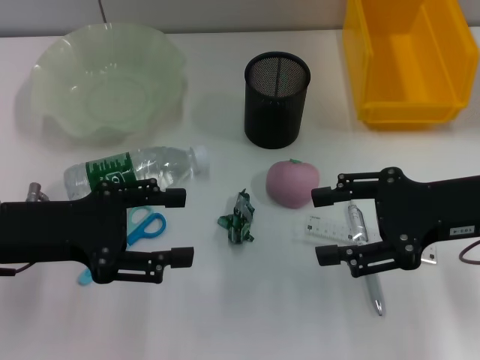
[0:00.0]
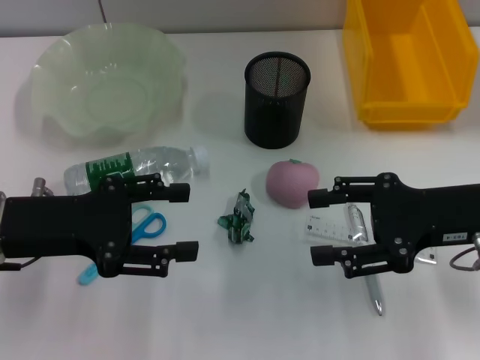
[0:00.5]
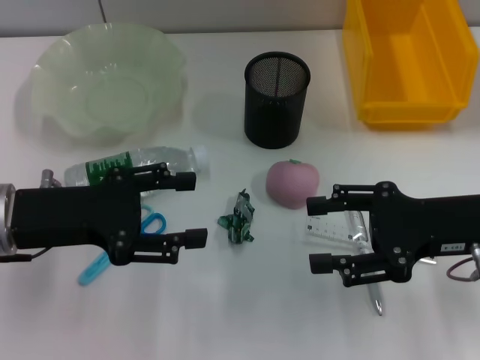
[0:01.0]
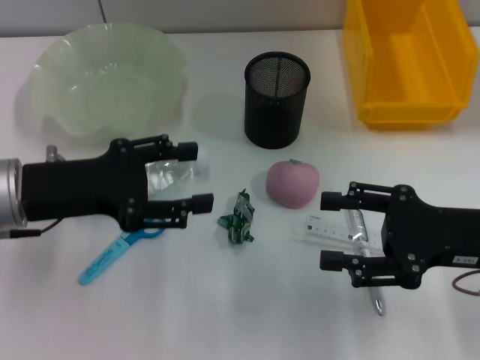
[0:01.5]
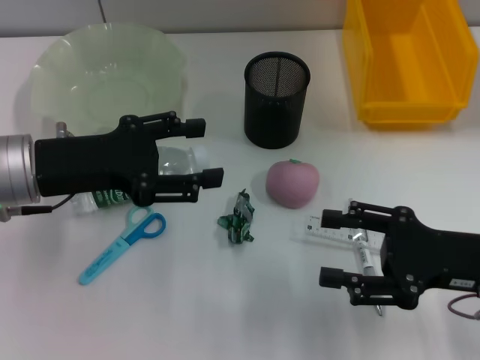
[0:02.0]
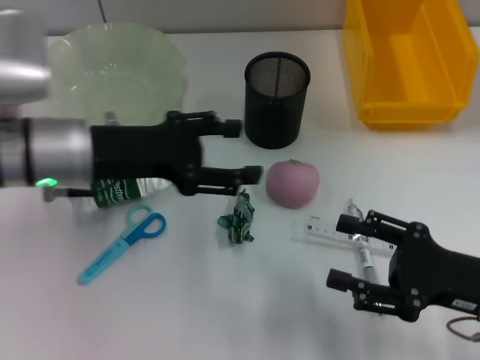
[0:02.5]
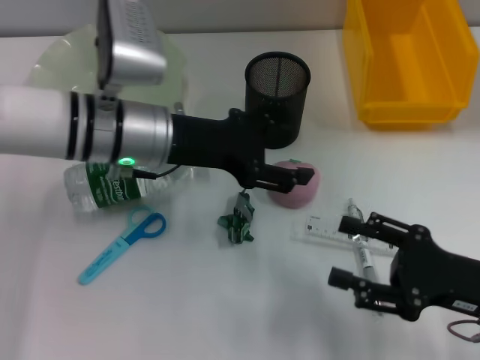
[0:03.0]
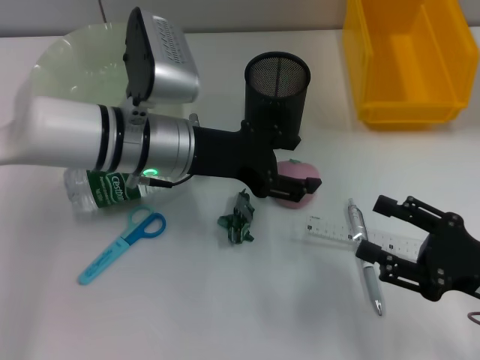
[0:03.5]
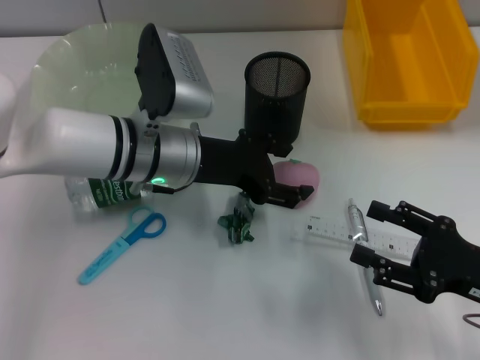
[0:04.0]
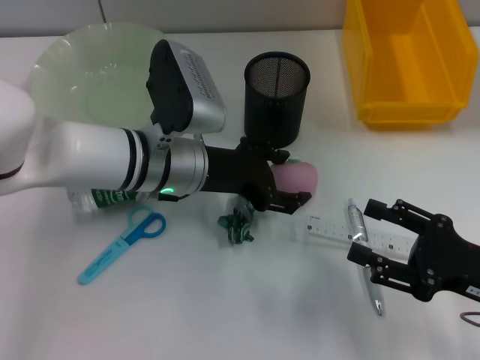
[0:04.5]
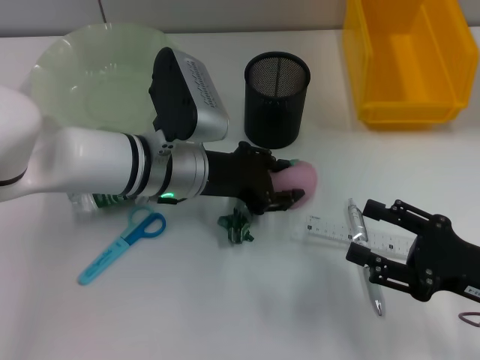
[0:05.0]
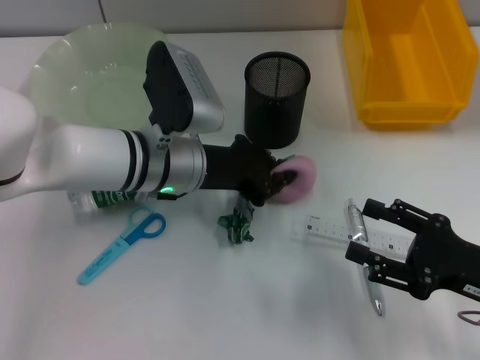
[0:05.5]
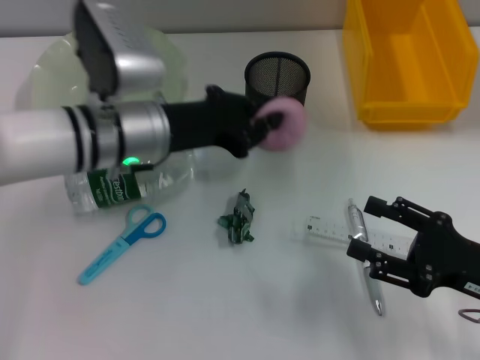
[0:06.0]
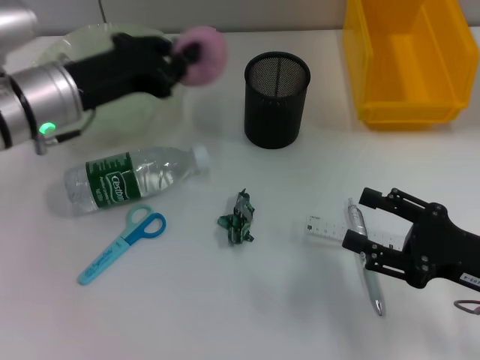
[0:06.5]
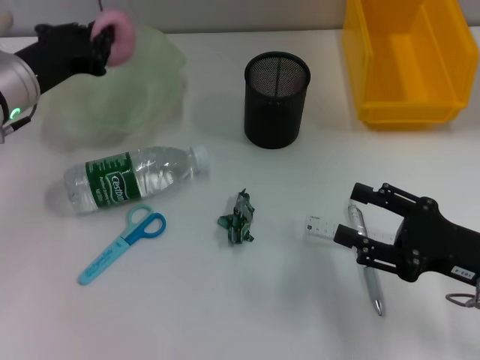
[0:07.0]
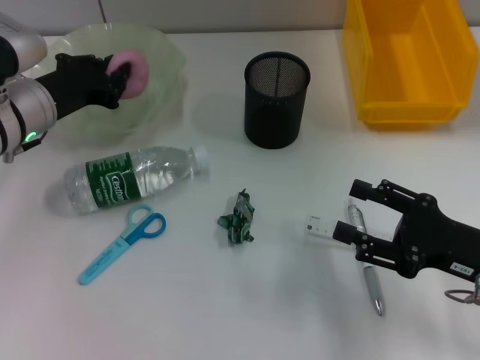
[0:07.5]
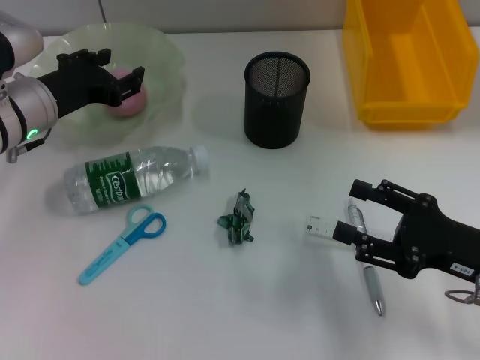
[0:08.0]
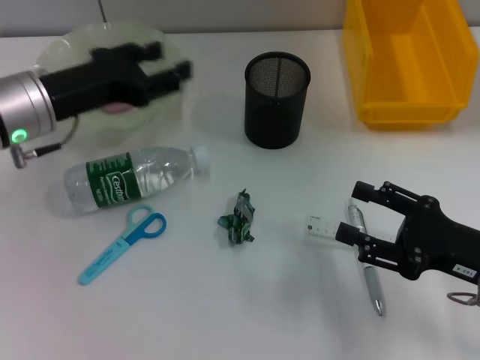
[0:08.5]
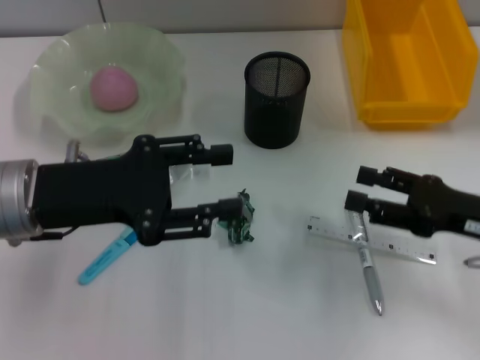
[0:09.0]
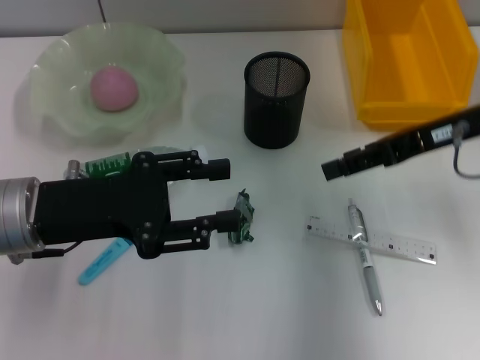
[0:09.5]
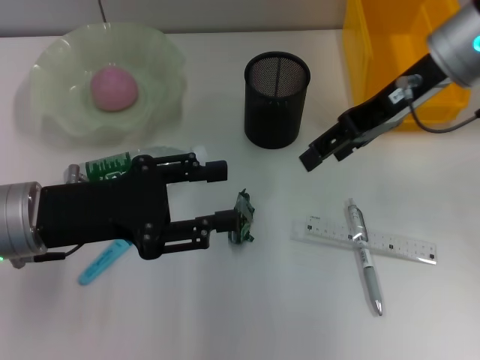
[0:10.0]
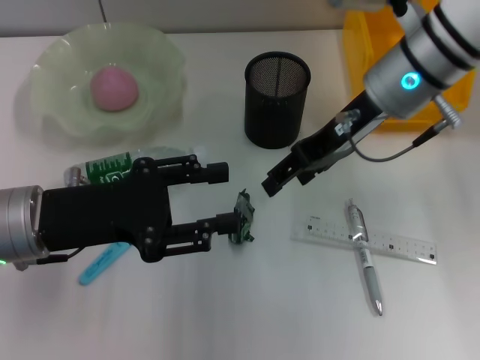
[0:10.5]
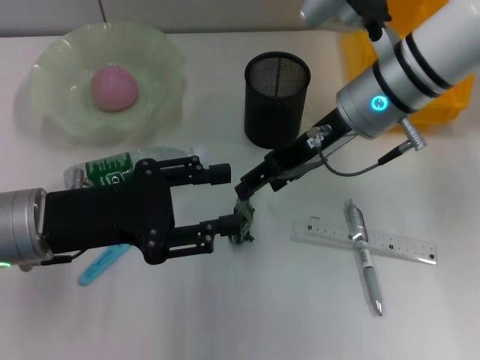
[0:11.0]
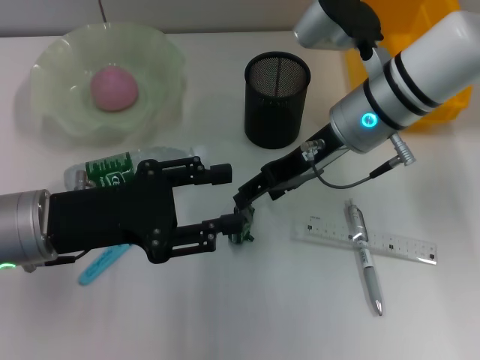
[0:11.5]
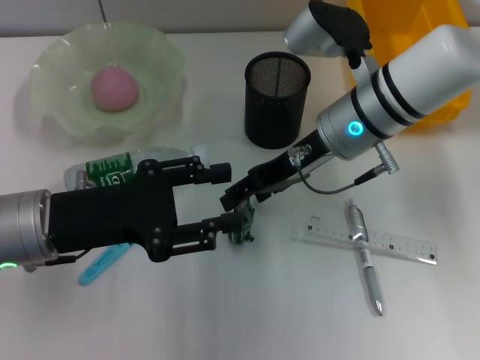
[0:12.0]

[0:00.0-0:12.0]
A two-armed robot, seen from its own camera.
Step, 0:00.0 to 0:05.0: Grab the peach with the left hand.
Step, 0:06.0 to 0:07.5: Place the peach into the fruit bowl with the left hand.
0:00.0 to 0:02.0: The left gripper ends up approximately 5 cm from where it was, while the right gripper moves downward, roughly 5 cm.
0:02.0 to 0:04.0: The left gripper goes roughly 15 cm to the right and forward, while the right gripper moves about 5 cm.
0:04.0 to 0:06.0: The left gripper closes its fingers.
0:06.0 to 0:08.0: The left gripper goes about 10 cm to the left, and opens up.
0:08.0 to 0:10.0: The right gripper heads forward, upward and to the left, covering about 25 cm. Meanwhile the left gripper travels backward by approximately 10 cm.
0:10.0 to 0:12.0: The right gripper travels downward and to the left by some 10 cm.

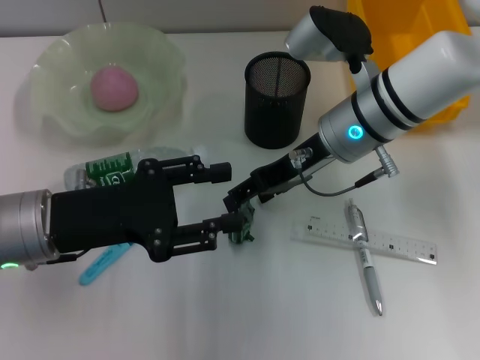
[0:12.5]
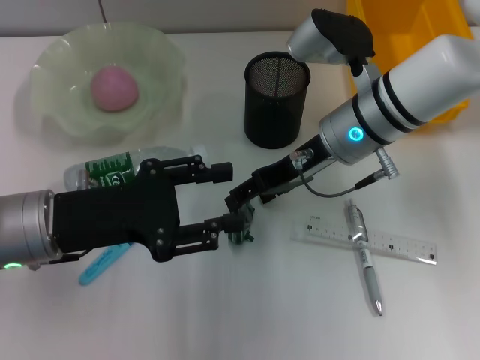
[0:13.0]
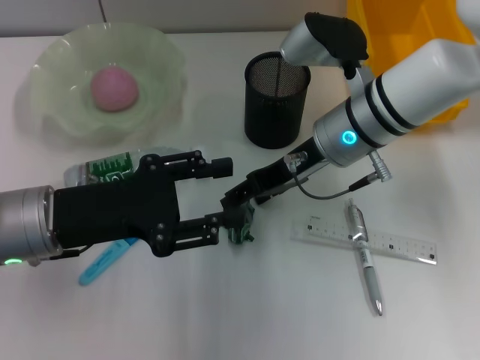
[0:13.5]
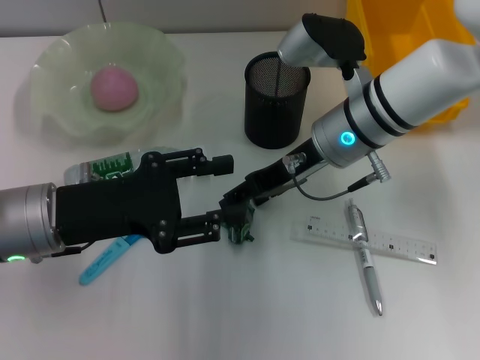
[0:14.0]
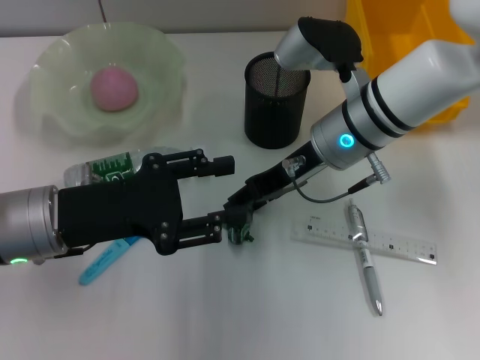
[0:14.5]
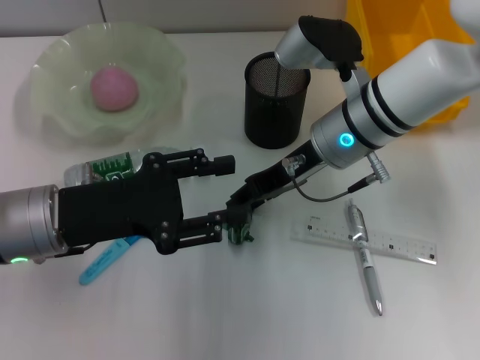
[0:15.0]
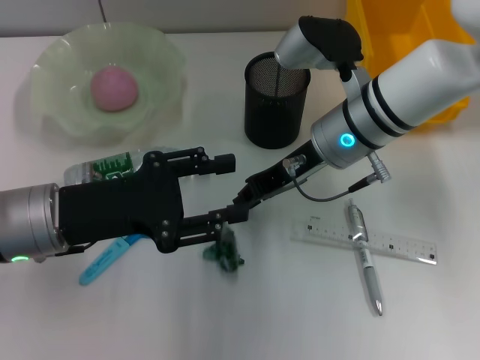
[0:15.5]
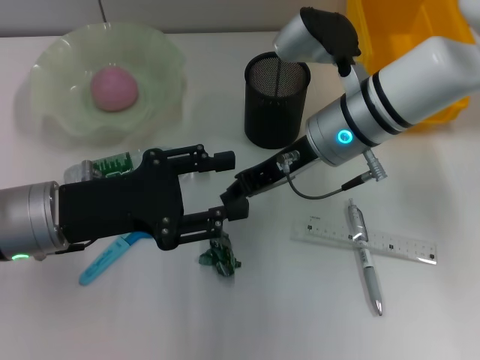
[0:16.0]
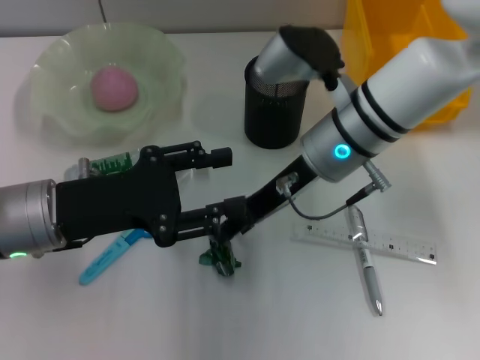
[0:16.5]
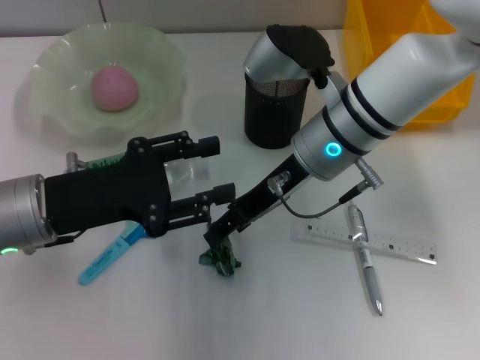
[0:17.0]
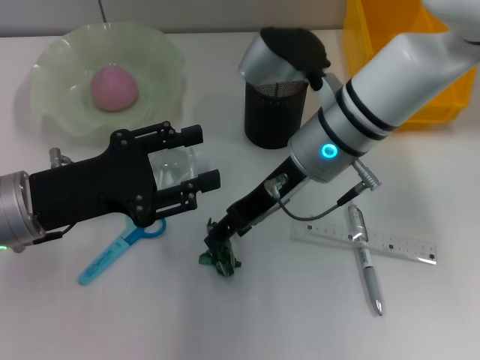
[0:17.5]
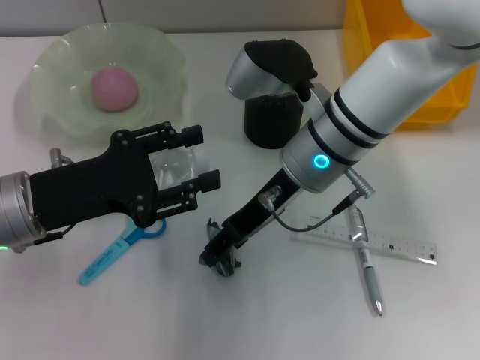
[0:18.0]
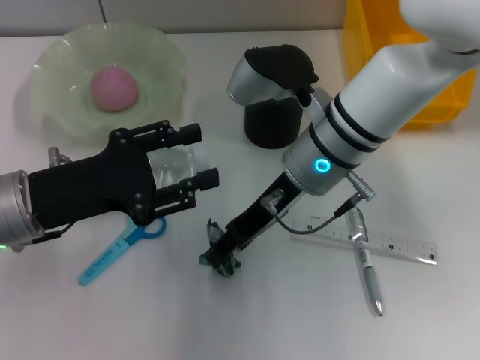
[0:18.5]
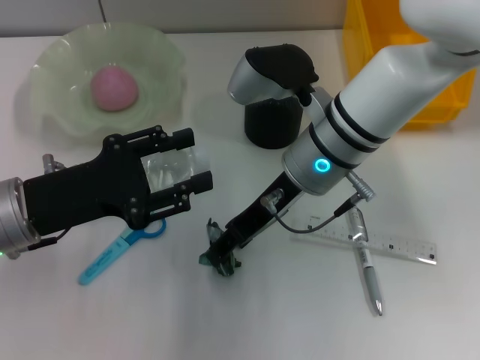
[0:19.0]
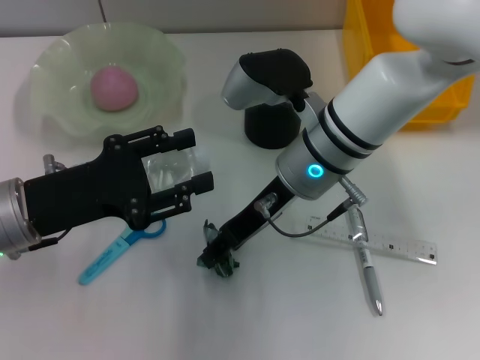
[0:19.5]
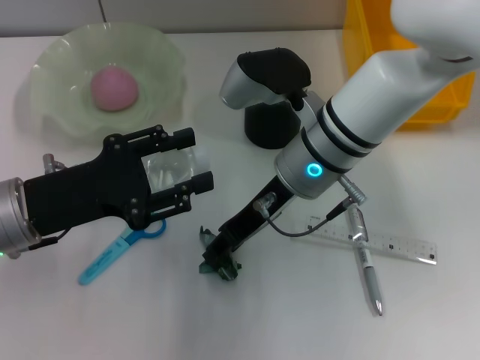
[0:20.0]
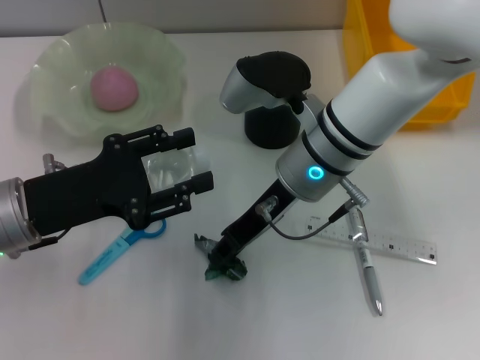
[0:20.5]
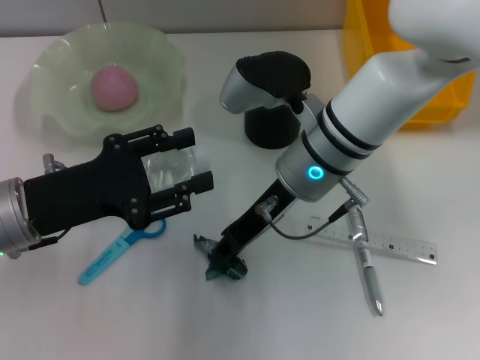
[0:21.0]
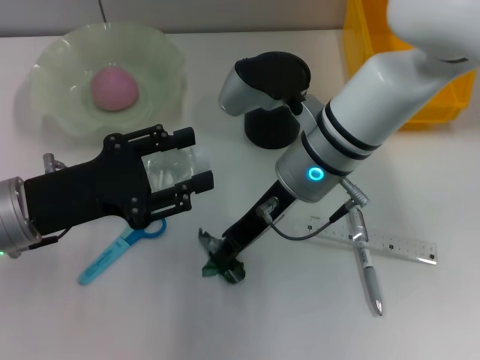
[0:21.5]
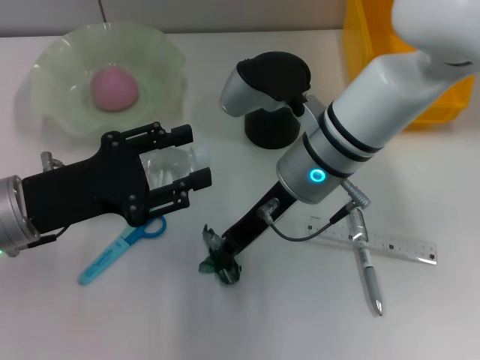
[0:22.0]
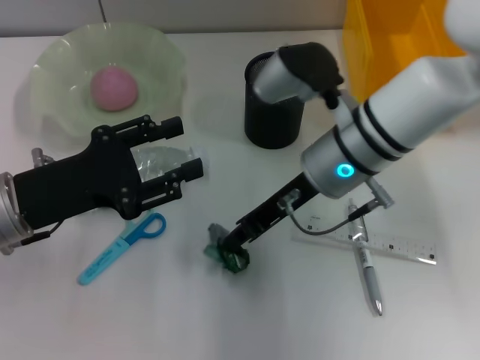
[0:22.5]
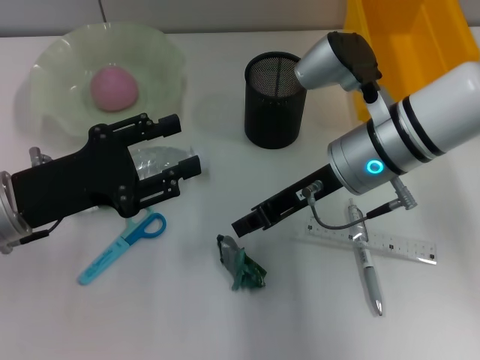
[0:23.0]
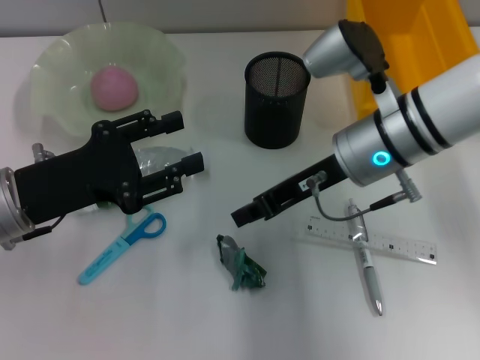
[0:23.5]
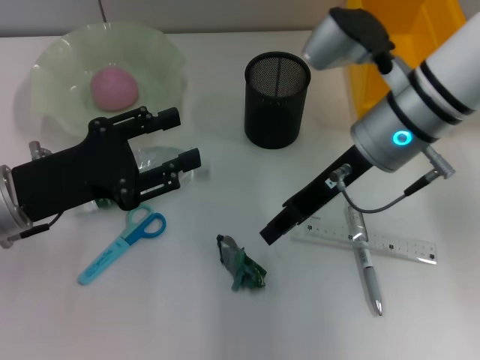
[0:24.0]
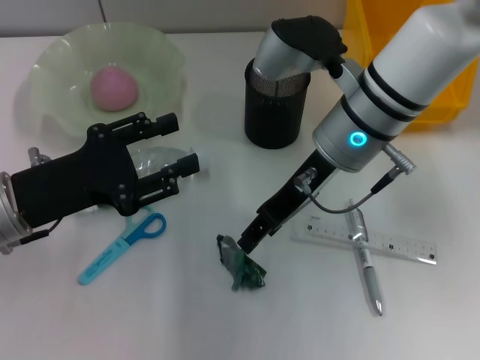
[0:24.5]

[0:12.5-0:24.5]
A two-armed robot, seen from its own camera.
0:12.5 to 0:14.5: Both grippers stay put.
0:14.5 to 0:16.5: The right gripper closes.
0:16.5 to 0:18.5: The right gripper opens its fingers.
0:18.5 to 0:20.5: Both grippers stay about where they are.
0:20.5 to 0:22.5: The right gripper closes its fingers.
0:22.5 to 0:24.5: The right gripper opens up.

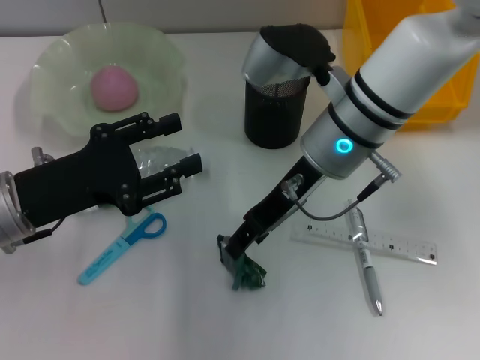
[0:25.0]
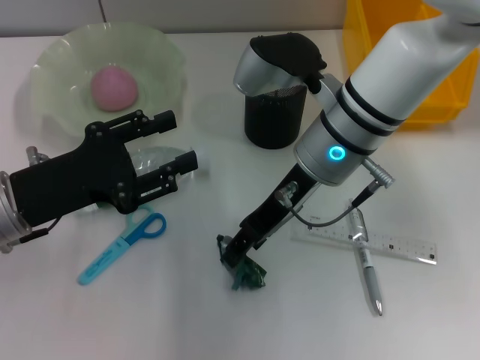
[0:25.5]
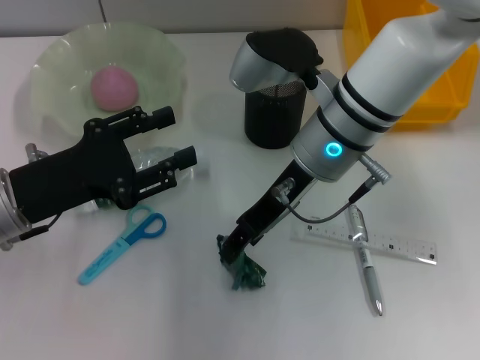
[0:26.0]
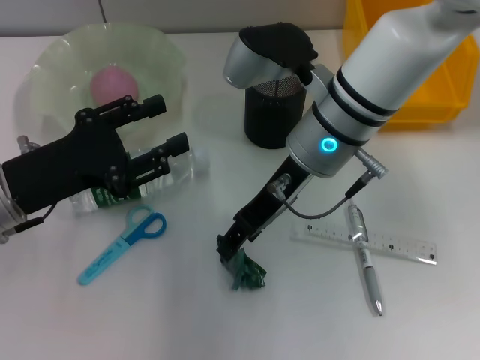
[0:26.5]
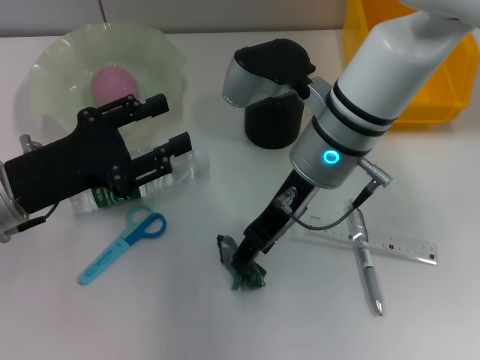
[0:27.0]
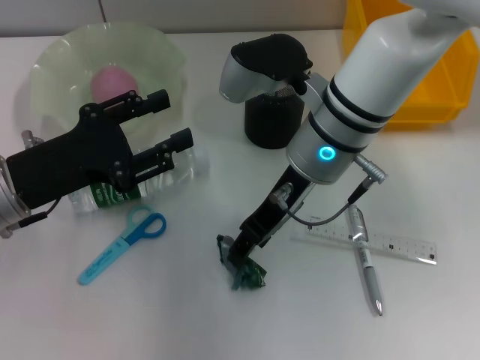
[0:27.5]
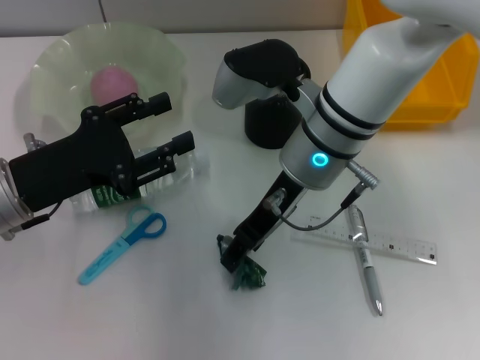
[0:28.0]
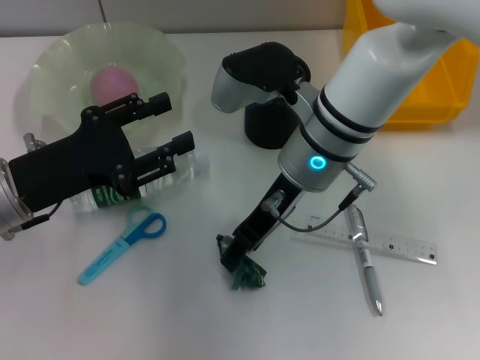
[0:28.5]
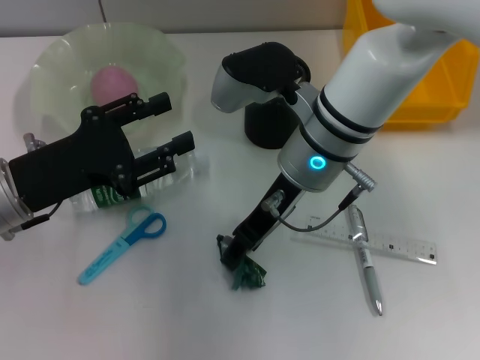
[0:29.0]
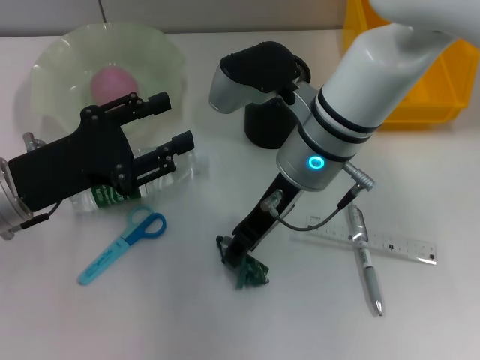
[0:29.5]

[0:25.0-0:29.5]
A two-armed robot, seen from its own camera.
0:25.0 to 0:27.0: There are only small adjustments of the grippers.
0:27.0 to 0:29.5: Both grippers stay about where they are.
